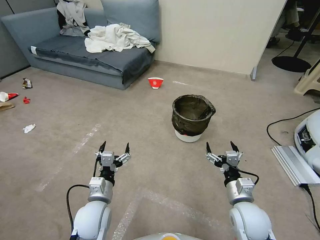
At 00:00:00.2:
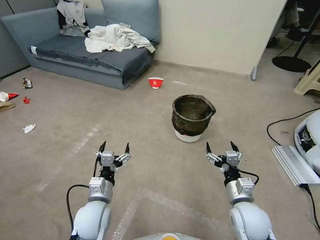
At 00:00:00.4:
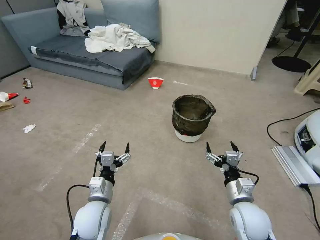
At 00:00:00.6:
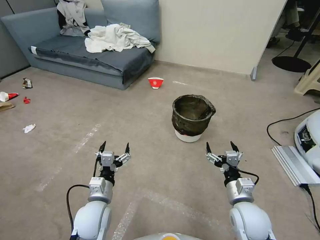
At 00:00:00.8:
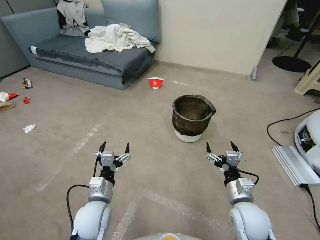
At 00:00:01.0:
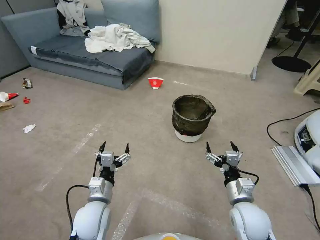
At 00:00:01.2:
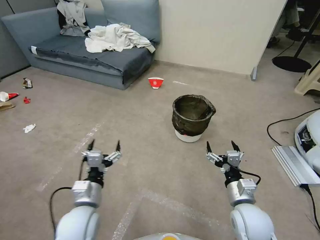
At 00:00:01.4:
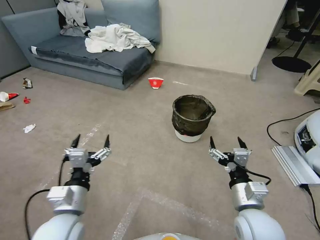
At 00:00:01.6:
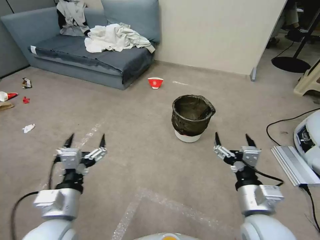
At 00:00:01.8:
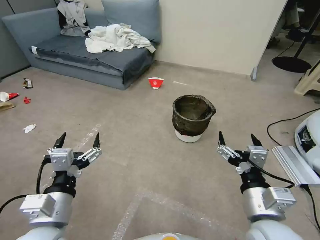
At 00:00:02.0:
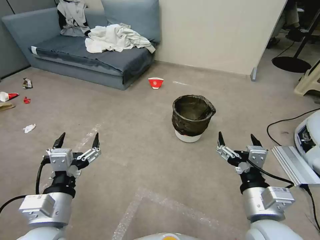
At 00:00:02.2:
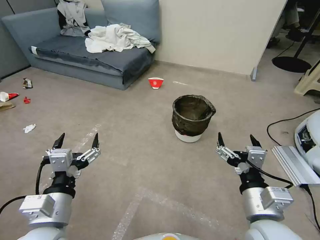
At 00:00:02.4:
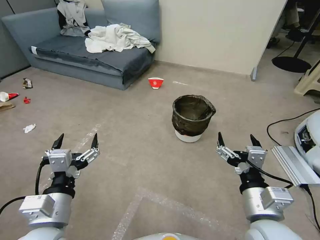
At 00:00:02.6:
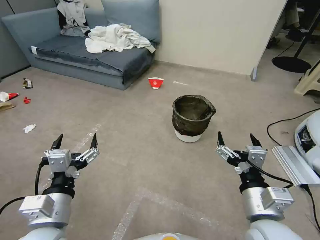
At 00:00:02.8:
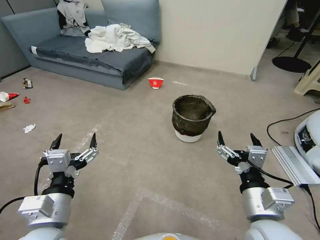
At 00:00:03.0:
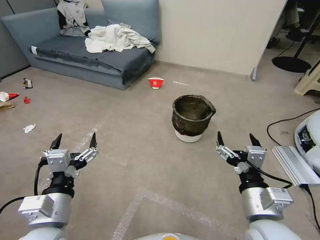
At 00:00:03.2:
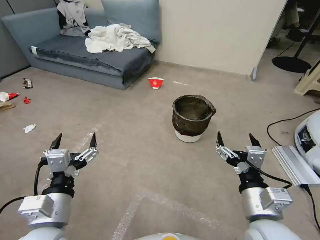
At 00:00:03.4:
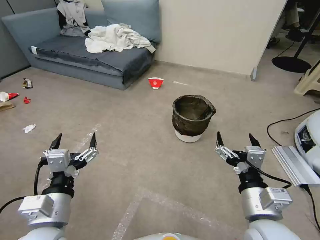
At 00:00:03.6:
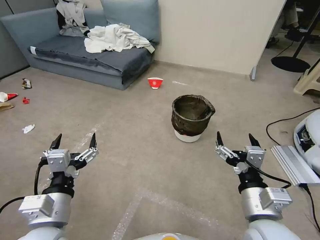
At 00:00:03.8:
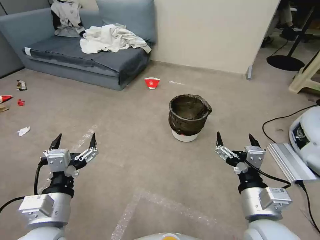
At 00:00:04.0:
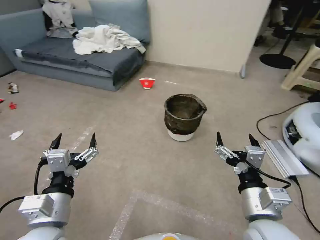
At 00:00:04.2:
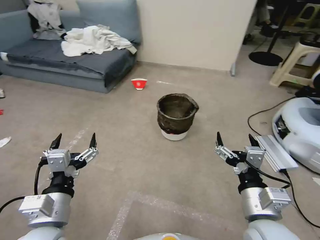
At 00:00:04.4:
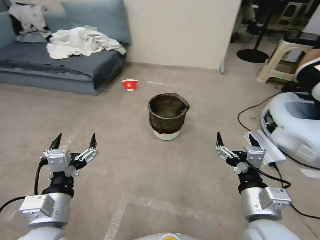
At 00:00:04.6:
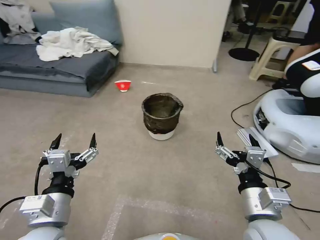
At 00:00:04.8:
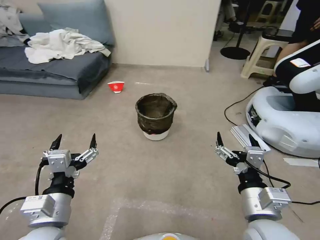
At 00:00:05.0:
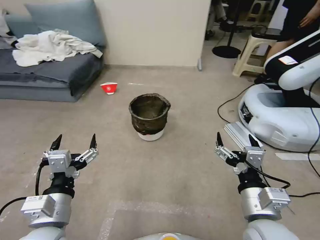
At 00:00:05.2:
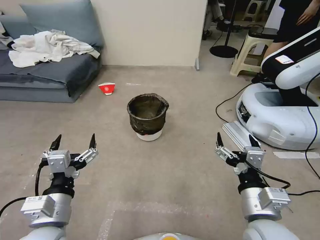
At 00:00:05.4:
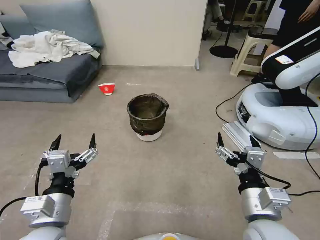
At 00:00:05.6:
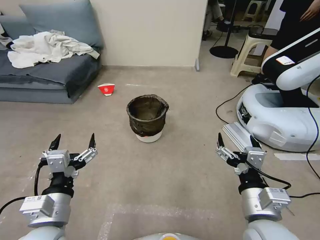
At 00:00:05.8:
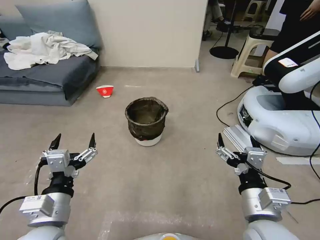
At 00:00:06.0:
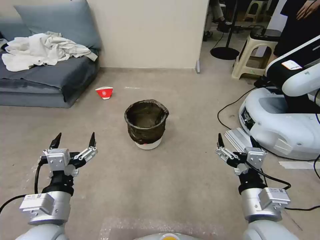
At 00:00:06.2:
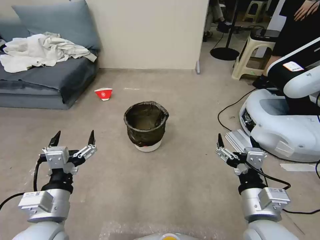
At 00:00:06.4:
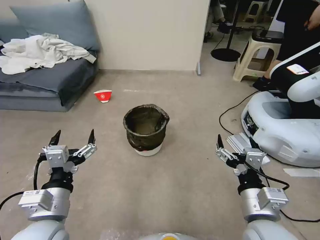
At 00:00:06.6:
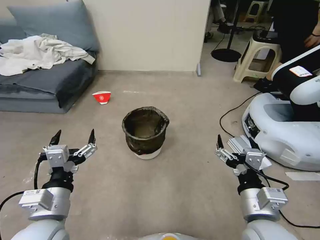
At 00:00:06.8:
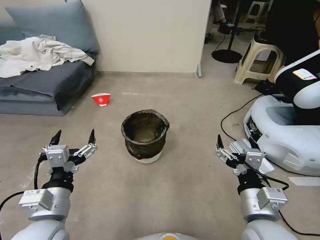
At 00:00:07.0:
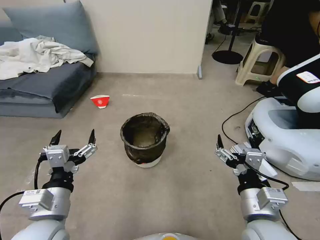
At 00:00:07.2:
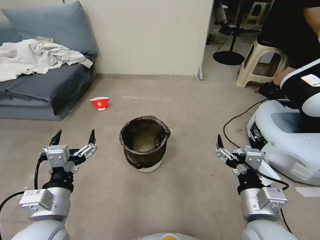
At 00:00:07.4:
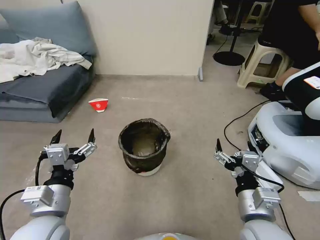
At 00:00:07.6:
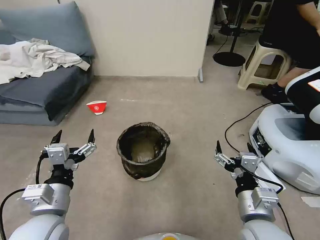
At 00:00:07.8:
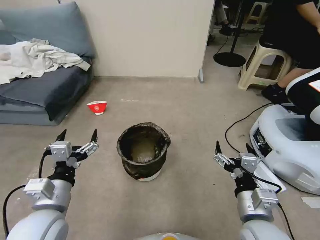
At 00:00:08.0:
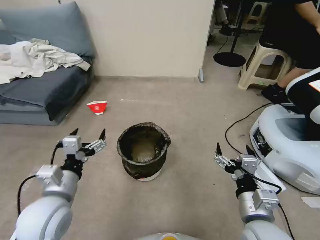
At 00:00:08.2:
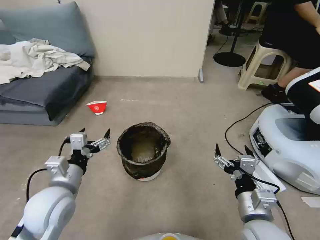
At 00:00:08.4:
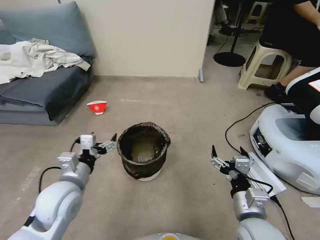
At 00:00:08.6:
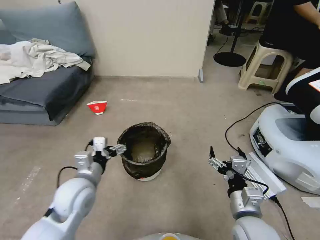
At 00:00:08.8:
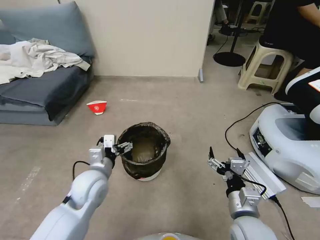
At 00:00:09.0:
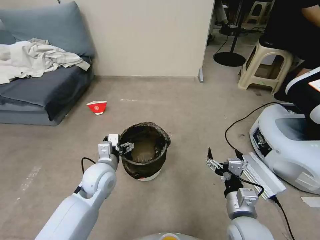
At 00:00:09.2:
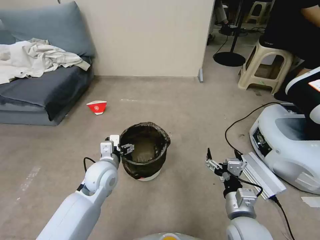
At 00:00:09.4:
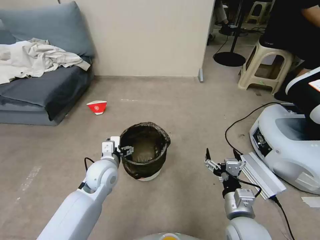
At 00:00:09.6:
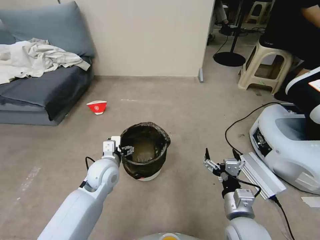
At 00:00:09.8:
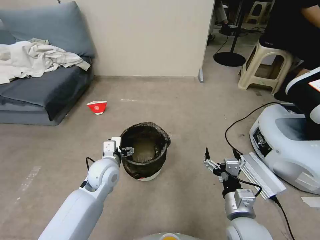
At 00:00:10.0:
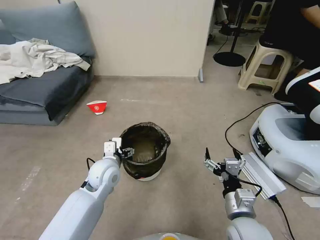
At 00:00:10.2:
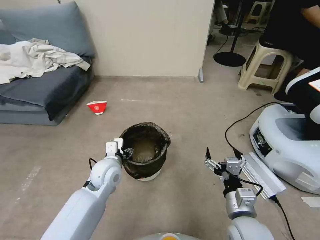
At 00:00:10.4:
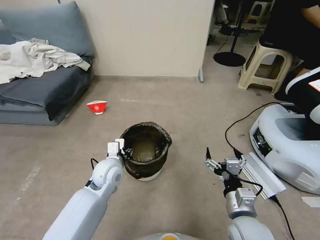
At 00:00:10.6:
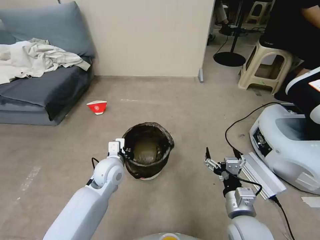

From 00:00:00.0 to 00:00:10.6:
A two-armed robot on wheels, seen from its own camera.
Task of the whole recording: Pick up the trash can from the floor.
From 00:00:01.6 to 00:00:03.0: The grippers move only a little.
From 00:00:07.6 to 00:00:09.0: The right gripper moves downward, approximately 5 cm. The left gripper moves forward, downward and to the right, approximately 20 cm.
From 00:00:09.0 to 00:00:10.6: The left gripper closes.

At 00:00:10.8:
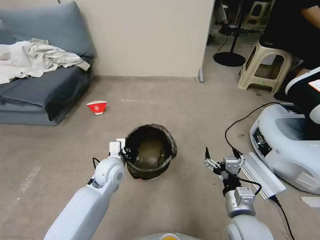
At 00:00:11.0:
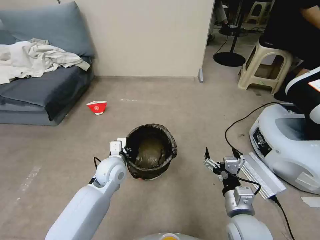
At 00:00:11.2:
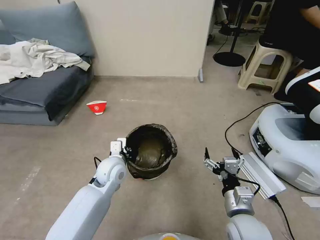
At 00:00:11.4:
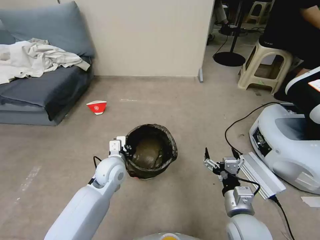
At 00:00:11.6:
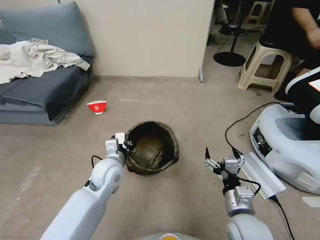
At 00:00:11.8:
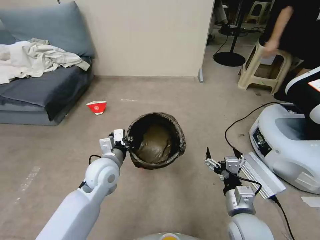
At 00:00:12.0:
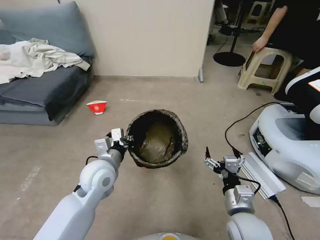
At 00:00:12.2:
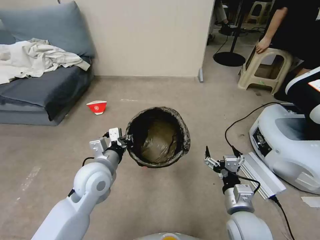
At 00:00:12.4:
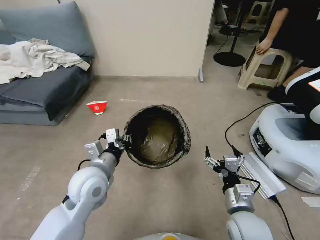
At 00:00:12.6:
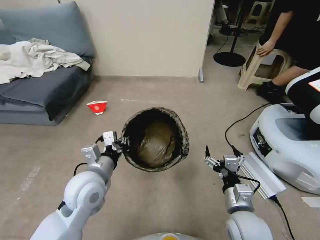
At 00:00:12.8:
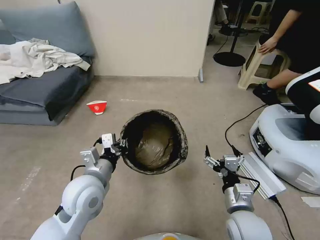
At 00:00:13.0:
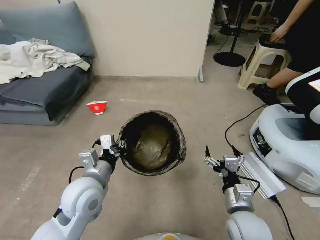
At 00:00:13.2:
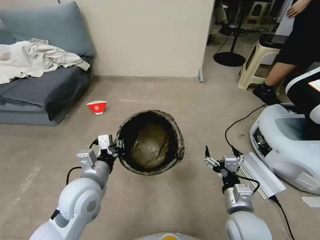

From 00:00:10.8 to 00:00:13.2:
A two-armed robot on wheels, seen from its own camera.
Task of the whole recording: Pick up the trash can from the floor.
From 00:00:10.8 to 00:00:12.0: The left gripper is displaced upward by about 5 cm.
From 00:00:12.0 to 00:00:13.2: The left gripper heads backward, covering about 5 cm.

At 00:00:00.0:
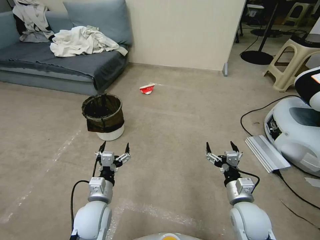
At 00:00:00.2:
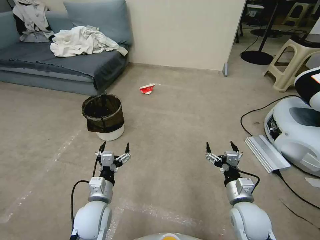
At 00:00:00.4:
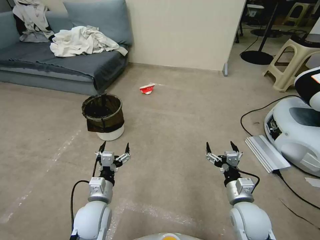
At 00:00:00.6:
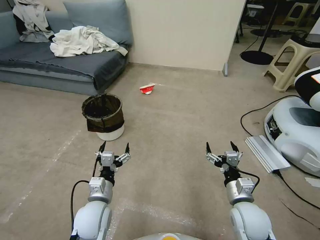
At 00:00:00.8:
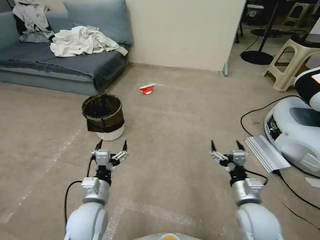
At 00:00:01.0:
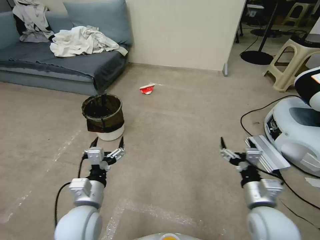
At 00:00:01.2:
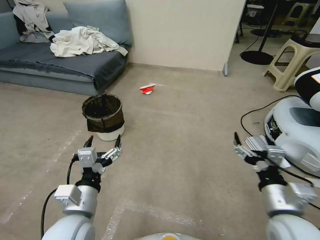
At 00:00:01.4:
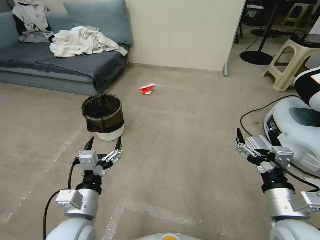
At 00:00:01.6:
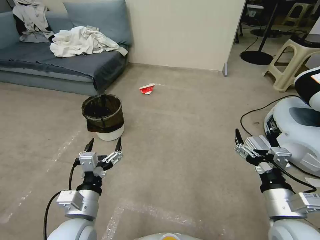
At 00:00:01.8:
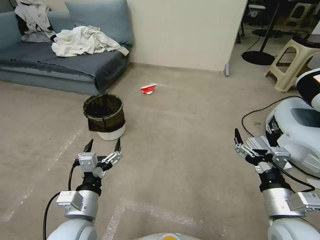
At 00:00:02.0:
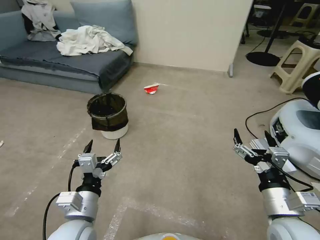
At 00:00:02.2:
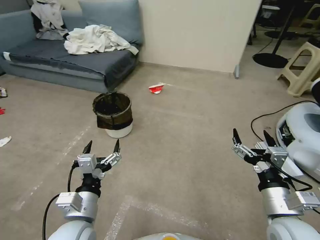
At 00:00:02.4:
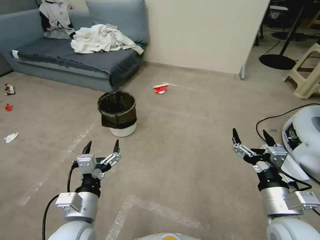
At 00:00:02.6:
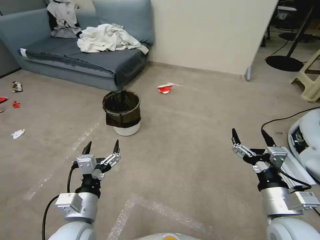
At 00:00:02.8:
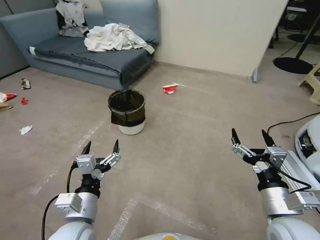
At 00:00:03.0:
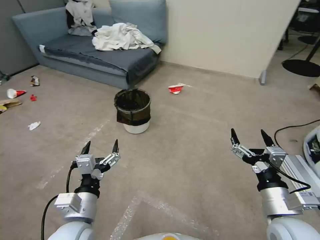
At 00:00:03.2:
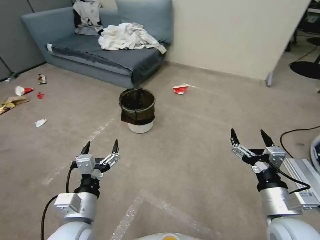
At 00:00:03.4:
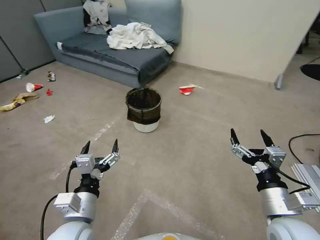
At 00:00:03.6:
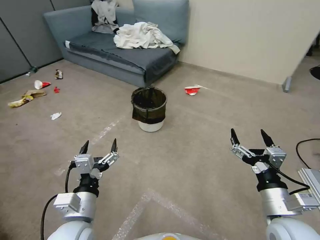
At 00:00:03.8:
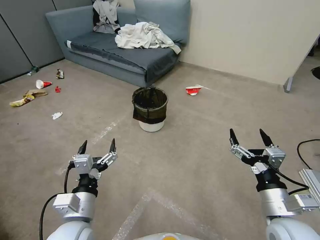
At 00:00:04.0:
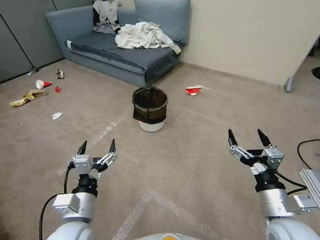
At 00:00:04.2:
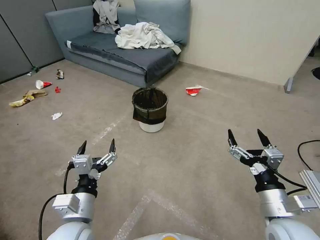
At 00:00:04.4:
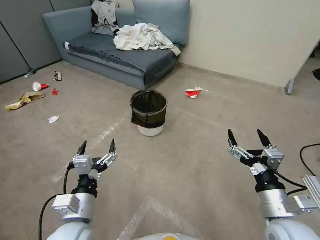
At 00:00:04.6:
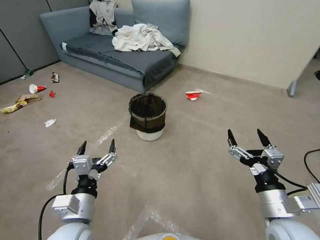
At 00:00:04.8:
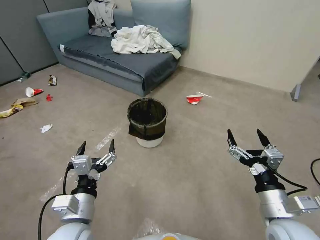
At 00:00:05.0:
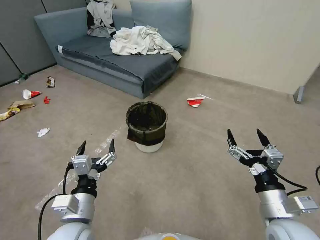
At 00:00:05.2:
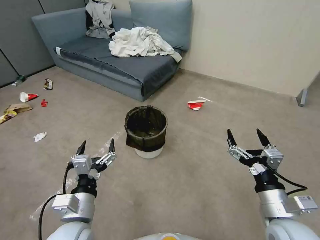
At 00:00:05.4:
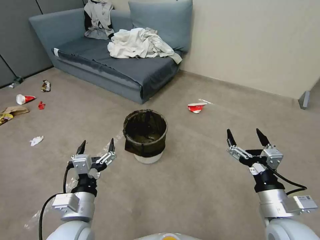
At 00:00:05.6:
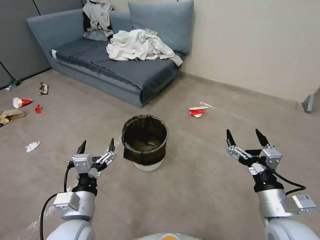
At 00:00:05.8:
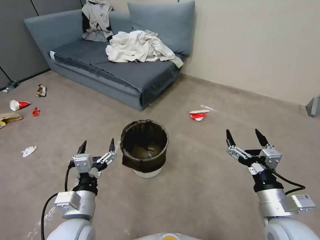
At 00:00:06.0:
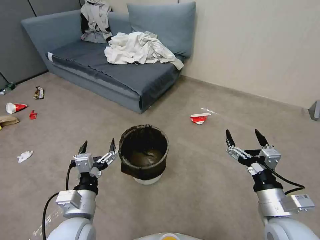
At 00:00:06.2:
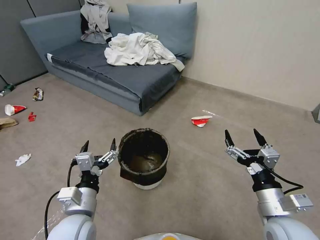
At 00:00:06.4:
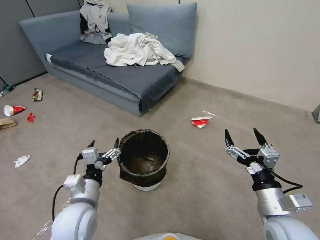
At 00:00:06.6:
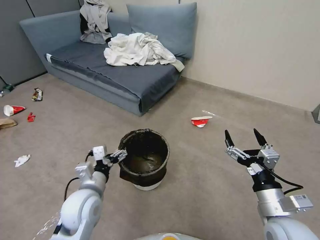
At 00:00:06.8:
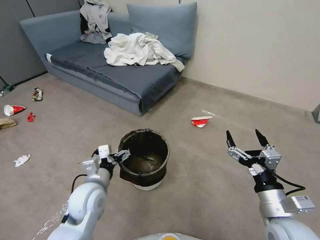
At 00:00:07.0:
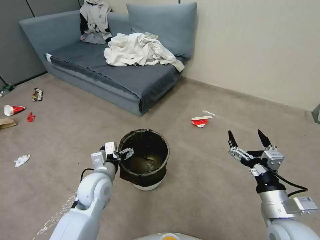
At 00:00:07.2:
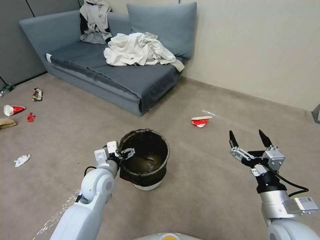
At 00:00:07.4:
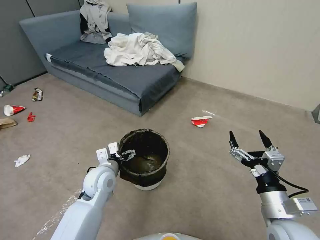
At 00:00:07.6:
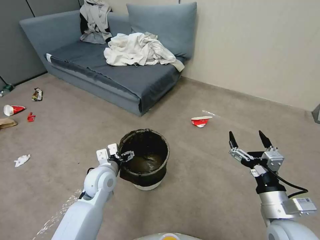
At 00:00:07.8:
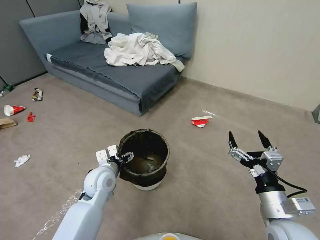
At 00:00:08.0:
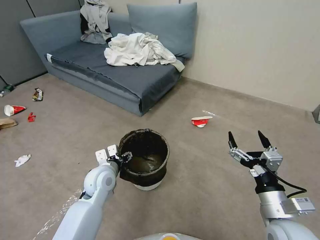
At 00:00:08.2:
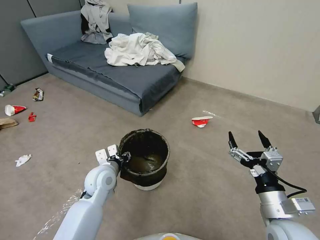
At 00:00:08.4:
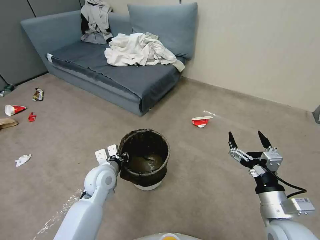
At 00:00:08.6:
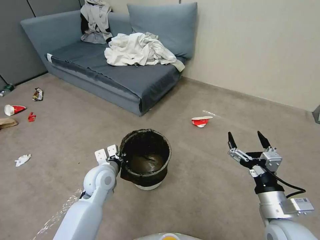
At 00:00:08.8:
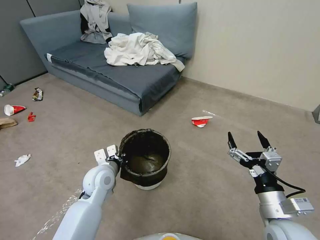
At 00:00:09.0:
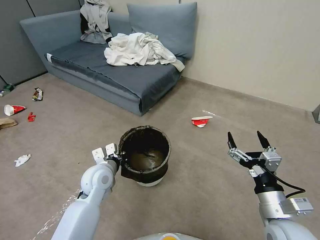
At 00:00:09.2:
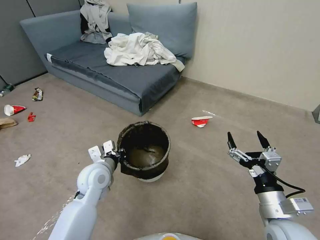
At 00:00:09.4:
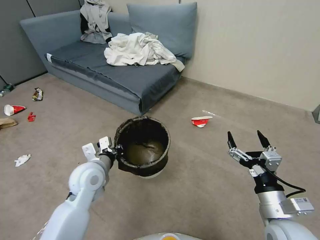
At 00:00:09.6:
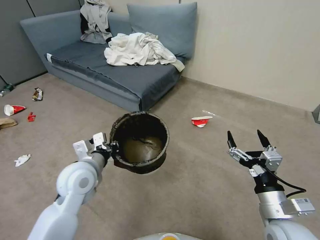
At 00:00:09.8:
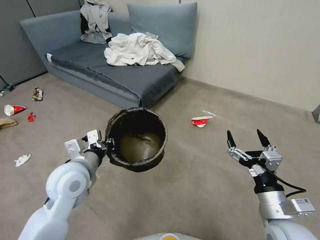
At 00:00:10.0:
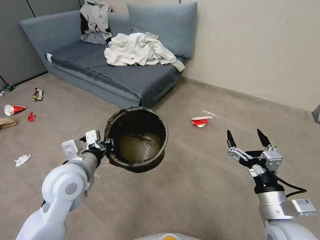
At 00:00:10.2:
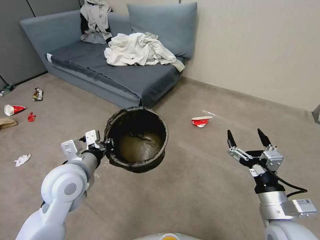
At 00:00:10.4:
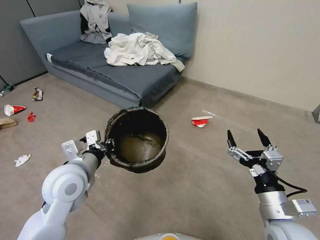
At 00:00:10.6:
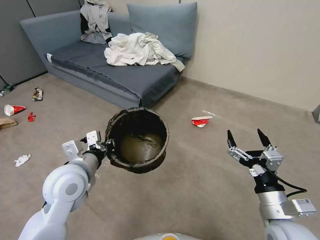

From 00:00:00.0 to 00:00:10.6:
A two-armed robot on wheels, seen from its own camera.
Task of the whole recording: Pick up the trash can from the floor.
From 00:00:06.0 to 00:00:07.6: The left gripper goes some 15 cm forward.
From 00:00:07.6 to 00:00:09.0: The left gripper closes.
From 00:00:09.0 to 00:00:10.6: The left gripper moves upward and backward, approximately 15 cm.
